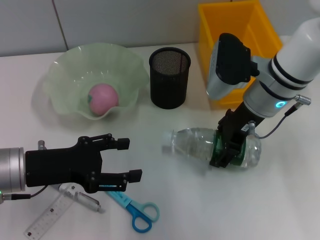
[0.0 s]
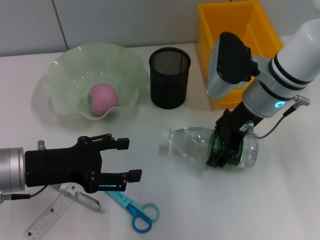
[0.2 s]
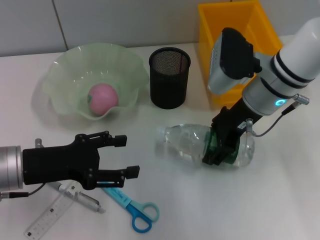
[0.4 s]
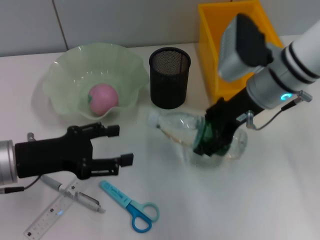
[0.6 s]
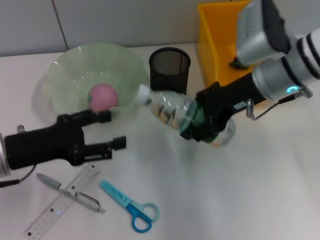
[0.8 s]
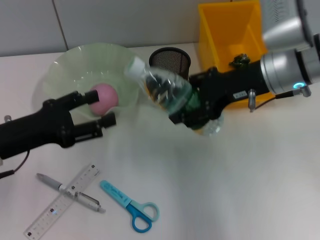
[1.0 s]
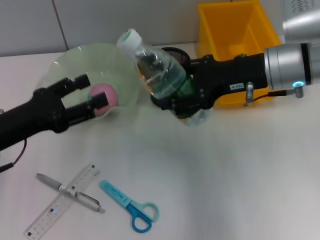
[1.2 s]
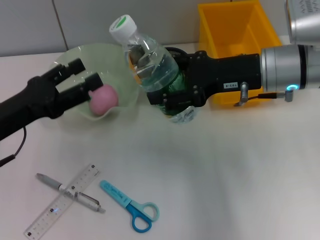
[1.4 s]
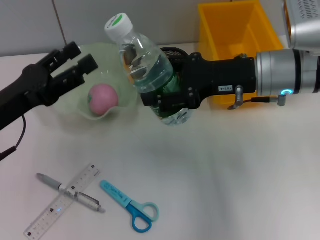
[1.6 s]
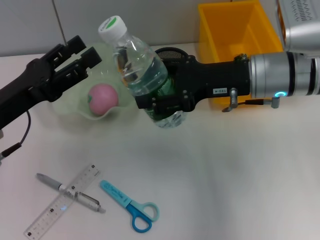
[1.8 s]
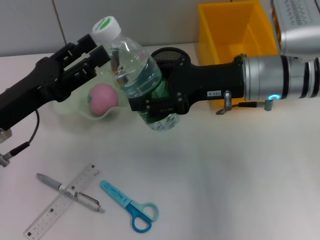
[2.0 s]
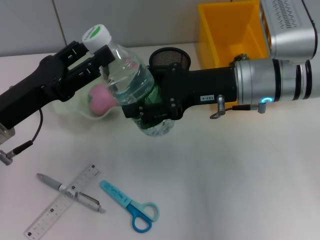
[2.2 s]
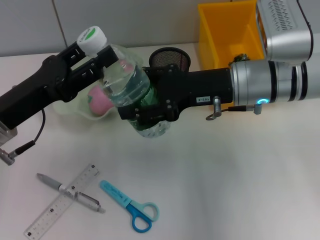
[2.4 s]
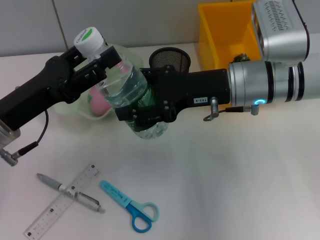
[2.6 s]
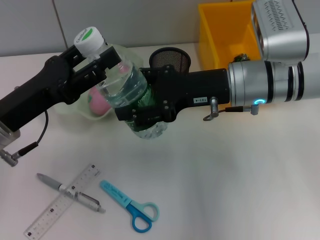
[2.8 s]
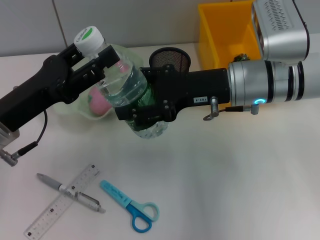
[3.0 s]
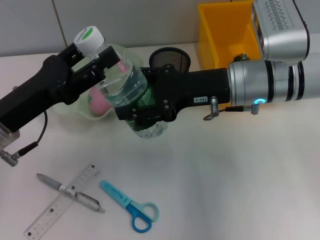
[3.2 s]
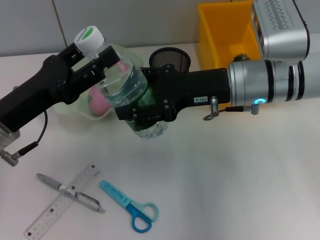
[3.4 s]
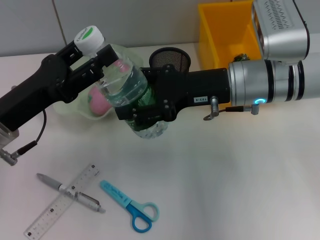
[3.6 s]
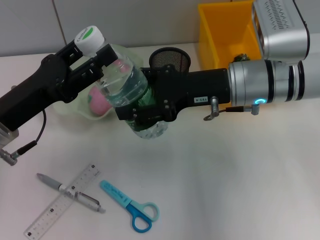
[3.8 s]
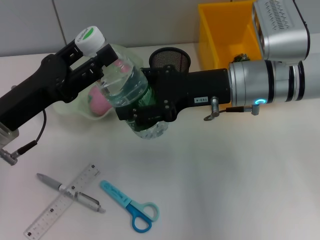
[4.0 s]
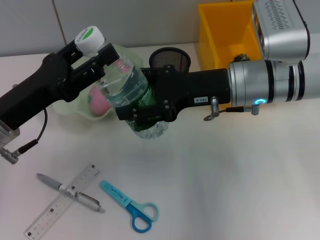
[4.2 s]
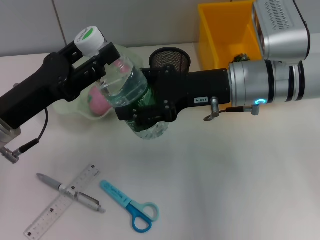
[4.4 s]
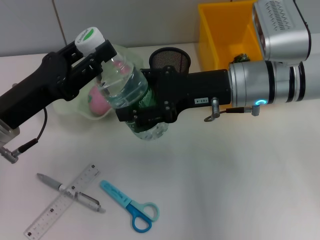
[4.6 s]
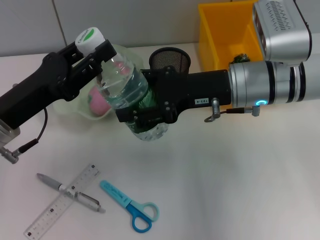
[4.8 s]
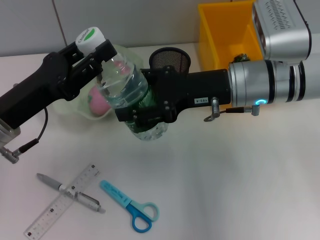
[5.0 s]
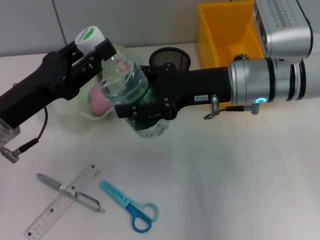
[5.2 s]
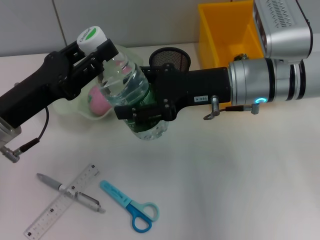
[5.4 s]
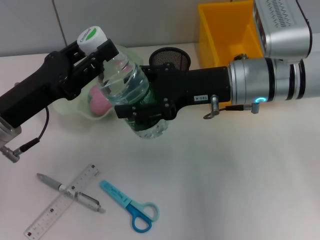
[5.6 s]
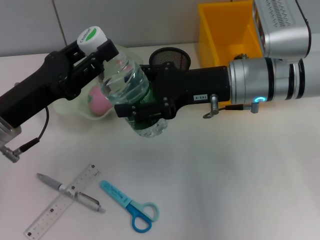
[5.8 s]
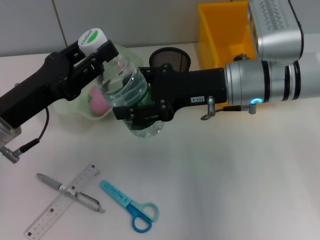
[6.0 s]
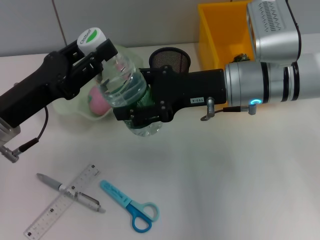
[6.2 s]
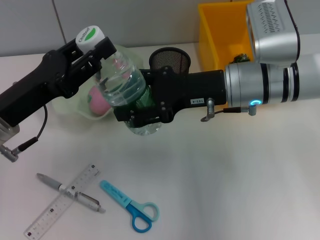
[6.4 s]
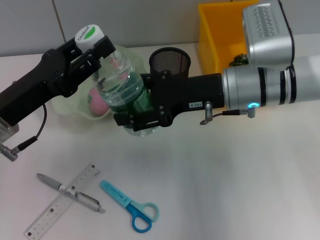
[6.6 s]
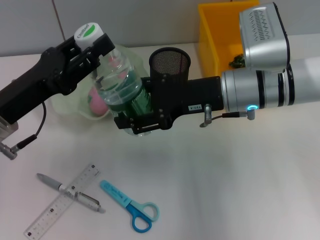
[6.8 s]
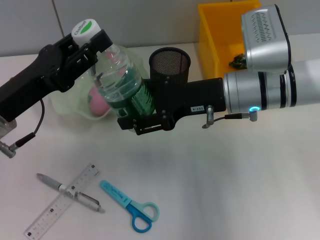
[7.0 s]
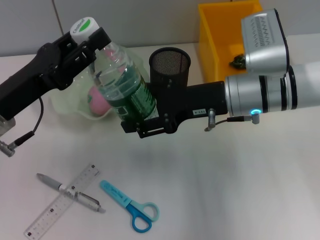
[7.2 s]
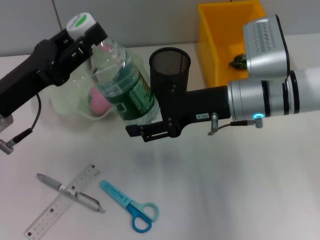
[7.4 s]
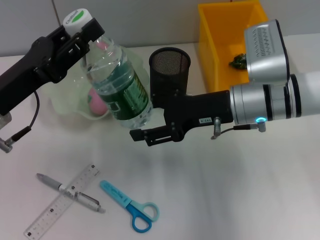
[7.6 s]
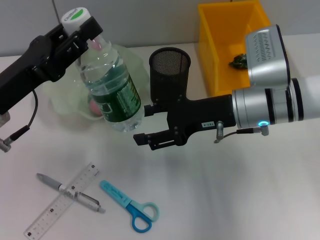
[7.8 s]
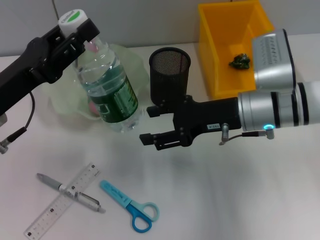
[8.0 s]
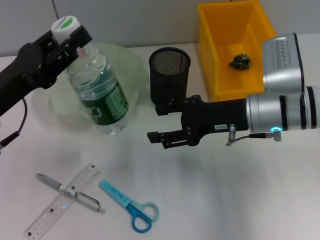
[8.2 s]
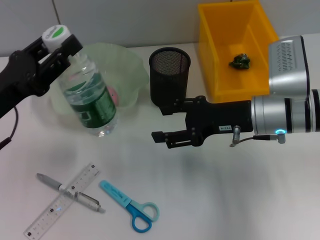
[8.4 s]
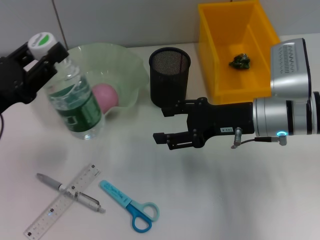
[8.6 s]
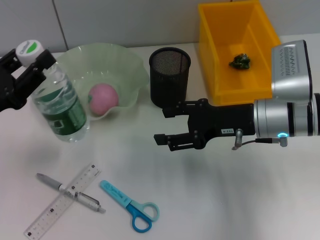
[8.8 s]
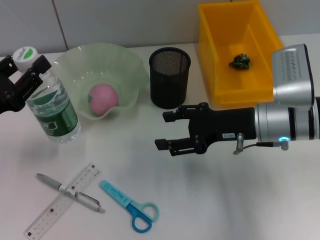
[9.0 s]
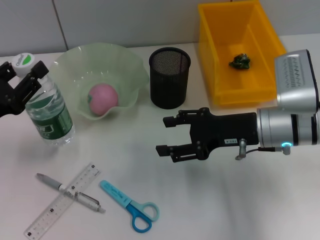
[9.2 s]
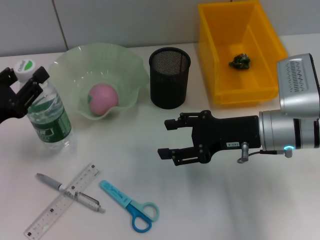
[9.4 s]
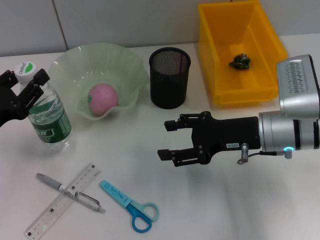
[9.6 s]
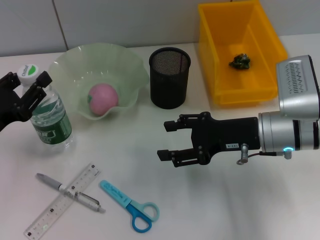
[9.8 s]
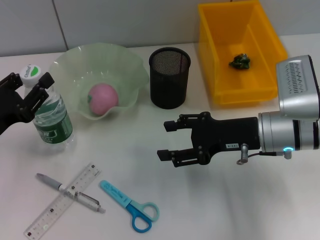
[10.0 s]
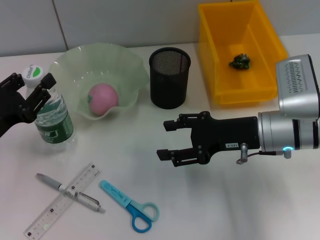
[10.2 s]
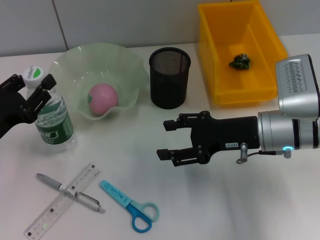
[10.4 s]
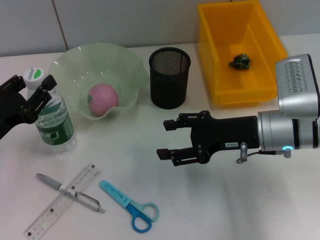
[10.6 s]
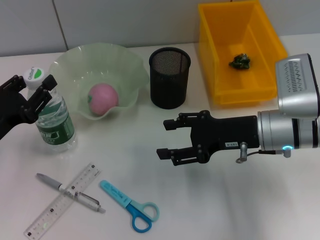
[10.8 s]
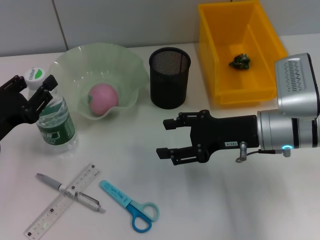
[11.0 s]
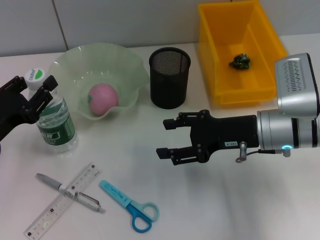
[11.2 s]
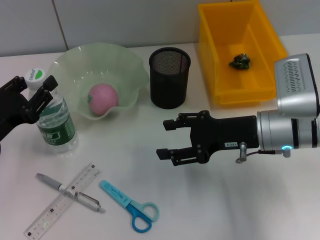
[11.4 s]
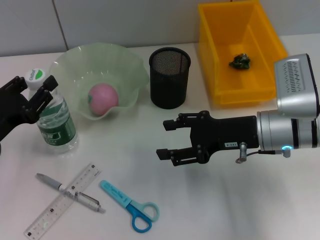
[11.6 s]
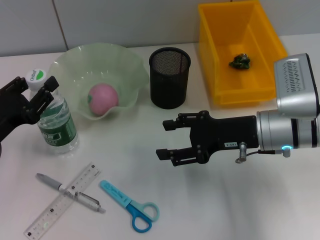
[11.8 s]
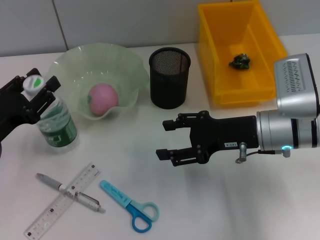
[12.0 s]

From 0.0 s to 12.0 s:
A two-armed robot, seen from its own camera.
Step, from 0.0 s to 7.4 s: Pass the water bottle from the right hand to the left hand.
From 1.6 s to 3.0 s: The grippers make only small movements.
From 3.0 s to 4.4 s: The two grippers keep their place.
From 4.4 s to 6.0 s: The left gripper closes.
From 7.6 s to 9.0 s: The left gripper moves to the left, some 5 cm.
From 9.0 s to 10.4 s: The grippers stay close to where they were, moving slightly.
From 10.4 s to 12.0 s: Both grippers stay put.

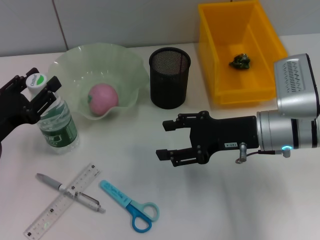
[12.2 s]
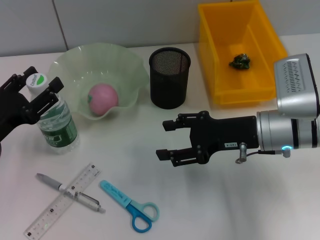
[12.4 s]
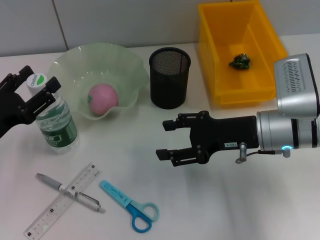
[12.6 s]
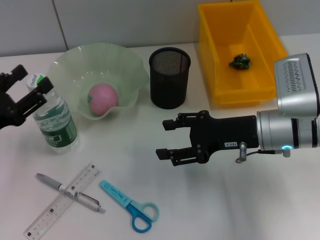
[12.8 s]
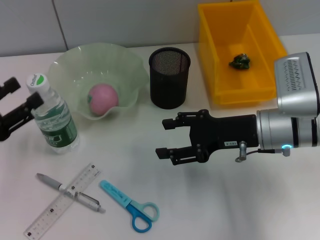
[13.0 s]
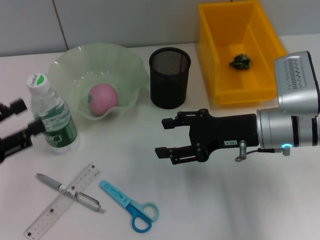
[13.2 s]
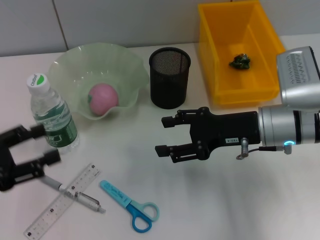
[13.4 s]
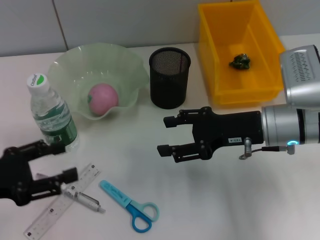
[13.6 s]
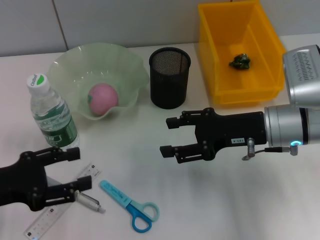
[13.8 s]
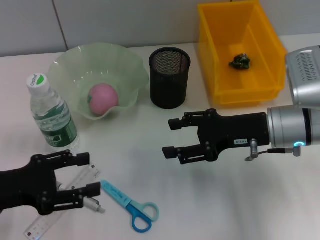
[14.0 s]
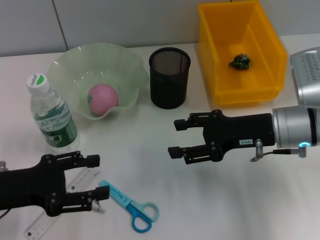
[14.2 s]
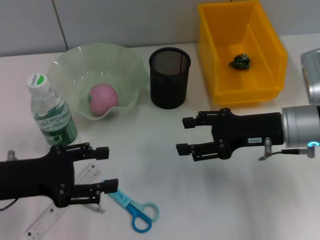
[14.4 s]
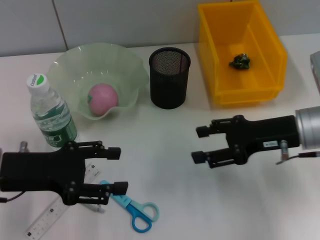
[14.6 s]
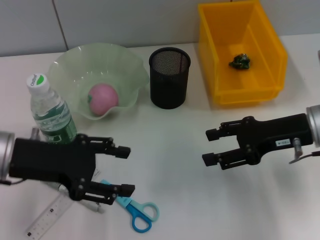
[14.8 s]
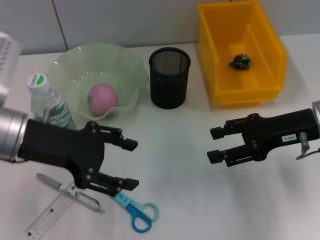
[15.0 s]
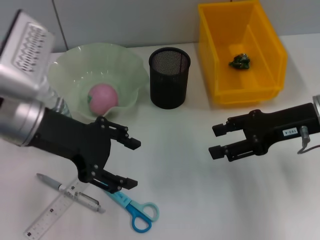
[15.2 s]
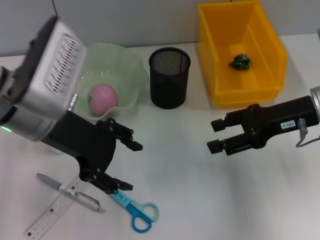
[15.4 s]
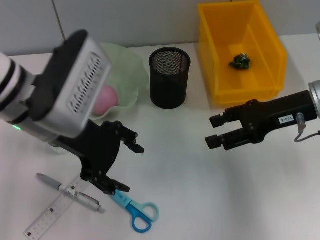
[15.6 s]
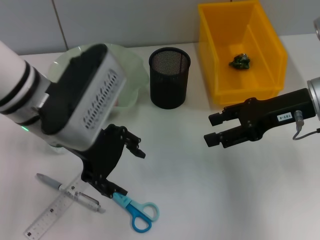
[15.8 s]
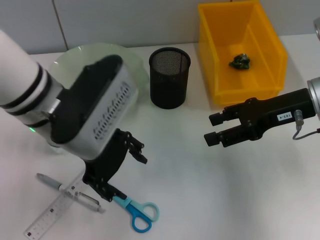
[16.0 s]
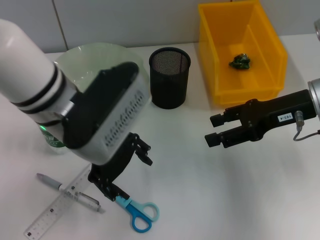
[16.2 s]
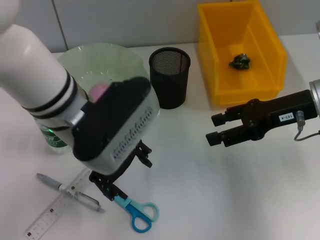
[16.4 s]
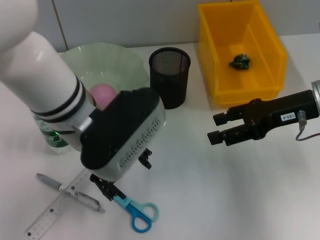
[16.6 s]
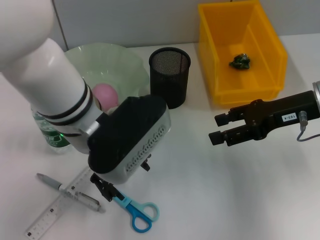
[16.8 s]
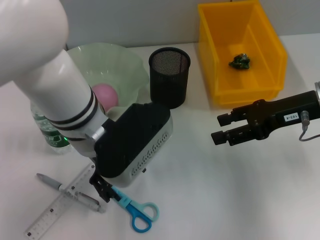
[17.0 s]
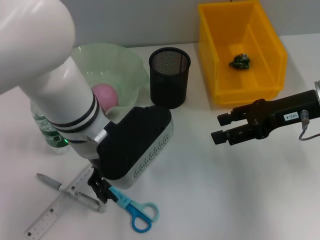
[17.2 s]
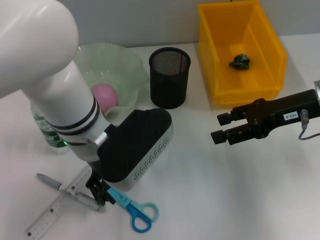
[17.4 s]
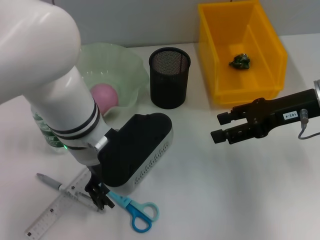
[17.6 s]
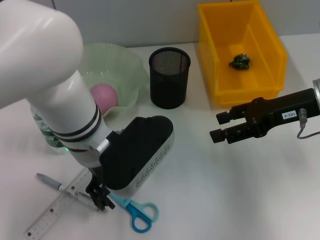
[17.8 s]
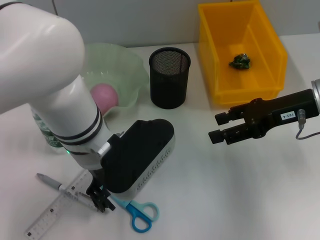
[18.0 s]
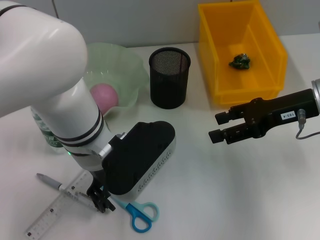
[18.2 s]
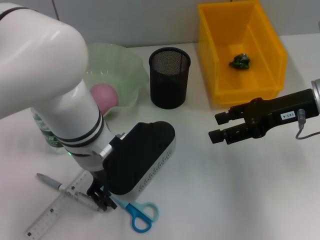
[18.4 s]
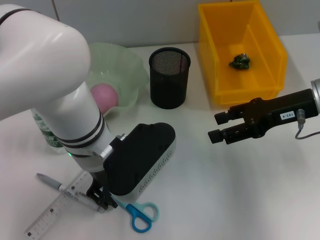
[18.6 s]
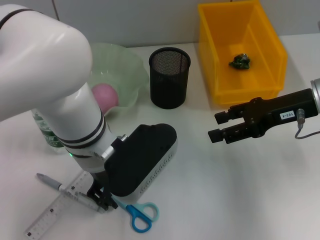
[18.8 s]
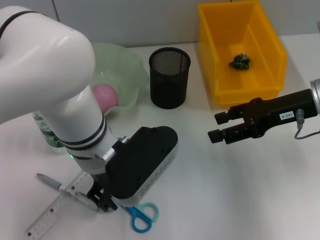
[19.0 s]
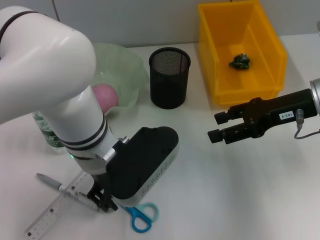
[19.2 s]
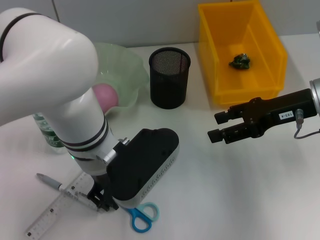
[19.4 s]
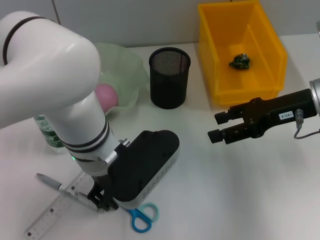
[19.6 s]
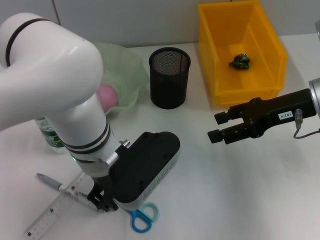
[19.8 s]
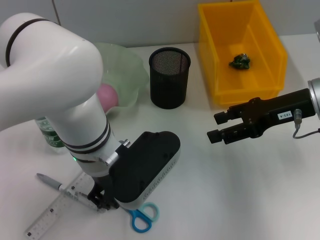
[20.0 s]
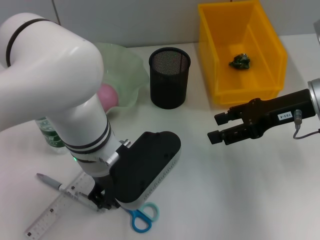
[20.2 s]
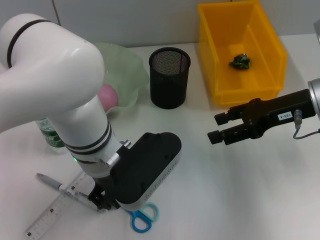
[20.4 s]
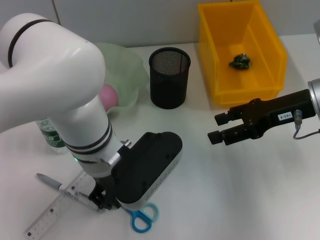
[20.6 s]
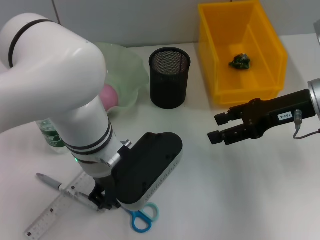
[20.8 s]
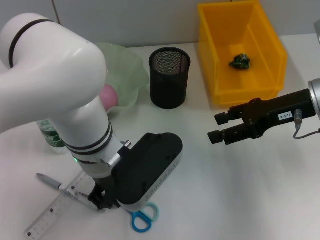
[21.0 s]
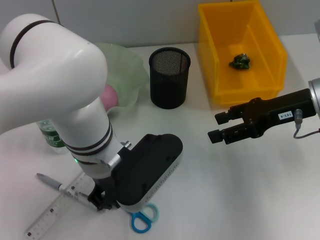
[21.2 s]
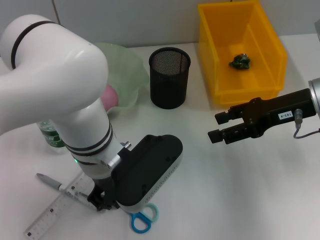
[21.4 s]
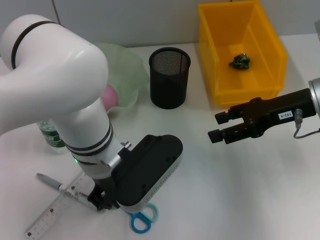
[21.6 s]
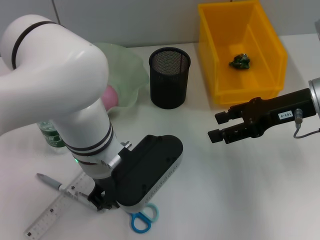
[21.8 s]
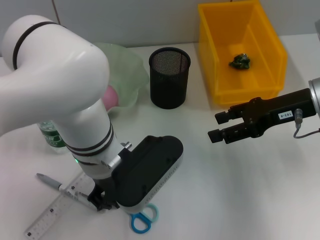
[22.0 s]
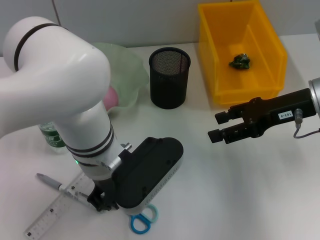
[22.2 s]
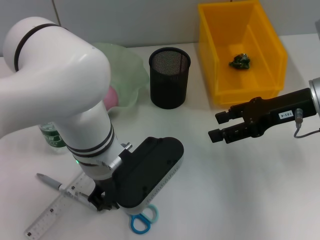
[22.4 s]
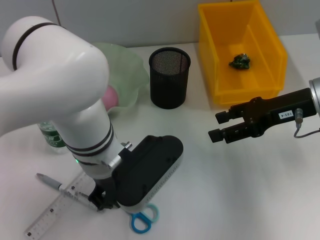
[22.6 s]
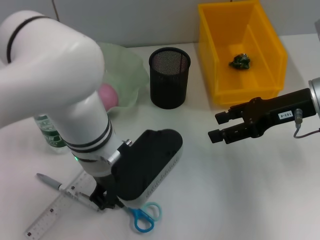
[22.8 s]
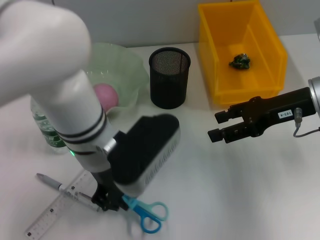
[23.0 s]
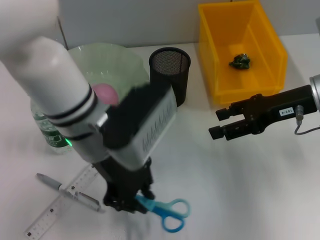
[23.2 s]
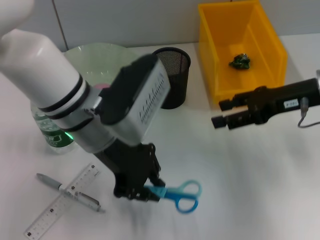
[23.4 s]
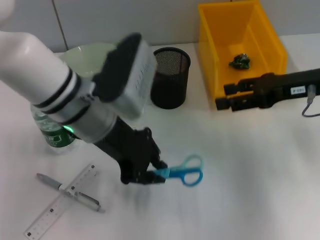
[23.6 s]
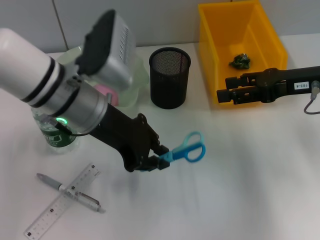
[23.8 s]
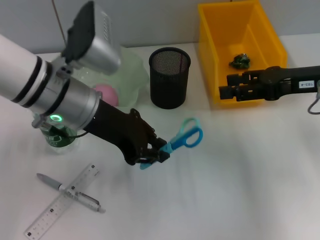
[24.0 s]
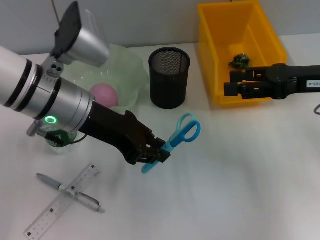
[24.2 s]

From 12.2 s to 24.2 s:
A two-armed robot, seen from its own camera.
Step, from 12.6 s to 21.6 s: Grab the blue scissors with the left hand.
From 12.2 s to 13.8 s: The left gripper ends up some 5 cm from where it was, and opens.
From 13.8 s to 15.2 s: The right gripper moves to the right, approximately 5 cm. The left gripper heads to the right, upward and forward, covering some 15 cm.
From 15.2 s to 16.6 s: The left gripper travels to the right by about 10 cm.
From 16.6 s to 18.2 s: There are only small adjustments of the grippers.
From 18.2 s to 19.8 s: The left gripper closes its fingers.
From 19.8 s to 22.6 s: The two grippers keep their place.
From 22.6 s to 24.2 s: The left gripper travels to the left by roughly 5 cm.
